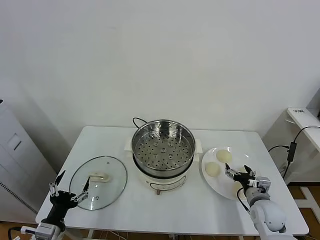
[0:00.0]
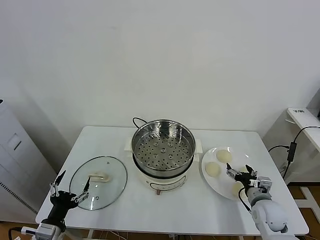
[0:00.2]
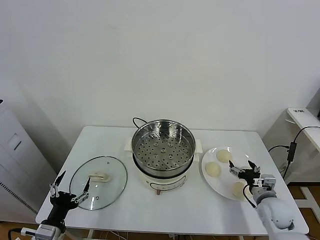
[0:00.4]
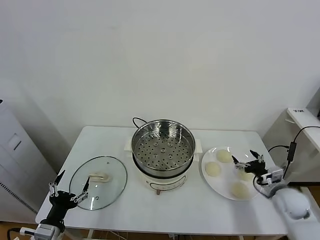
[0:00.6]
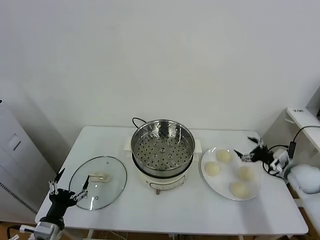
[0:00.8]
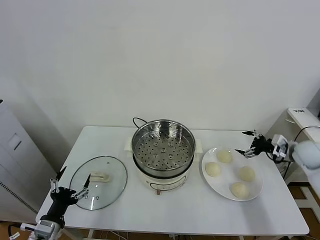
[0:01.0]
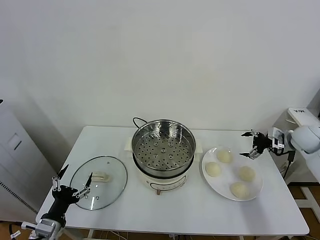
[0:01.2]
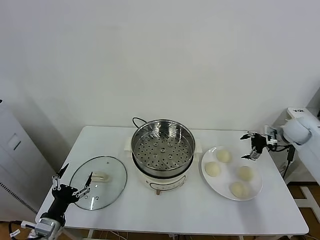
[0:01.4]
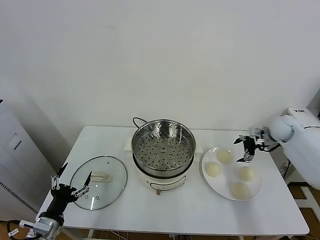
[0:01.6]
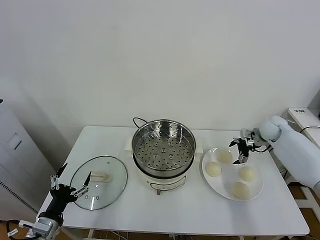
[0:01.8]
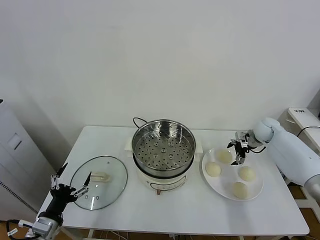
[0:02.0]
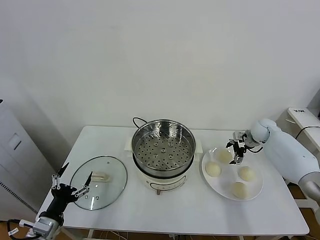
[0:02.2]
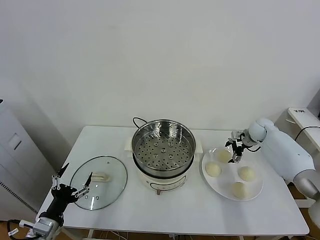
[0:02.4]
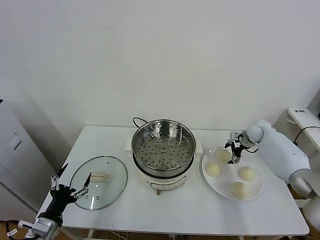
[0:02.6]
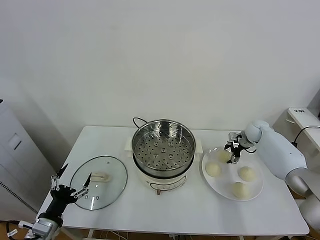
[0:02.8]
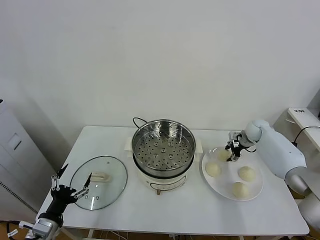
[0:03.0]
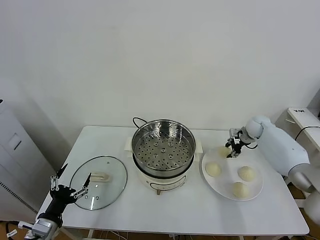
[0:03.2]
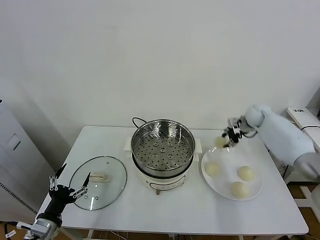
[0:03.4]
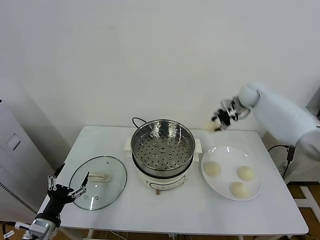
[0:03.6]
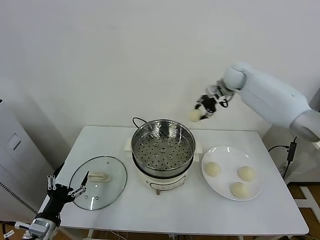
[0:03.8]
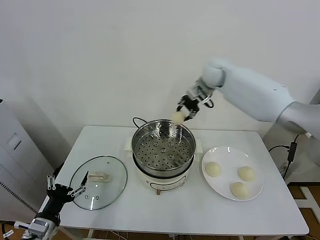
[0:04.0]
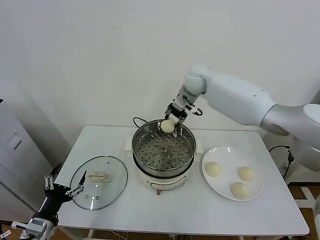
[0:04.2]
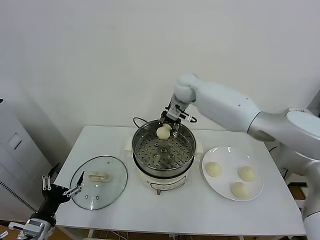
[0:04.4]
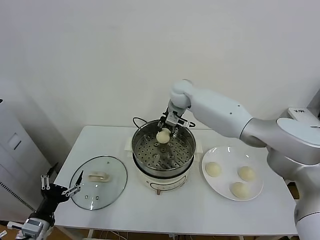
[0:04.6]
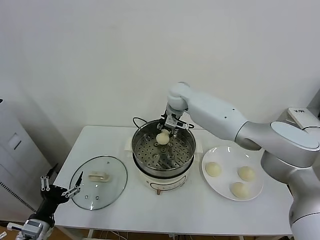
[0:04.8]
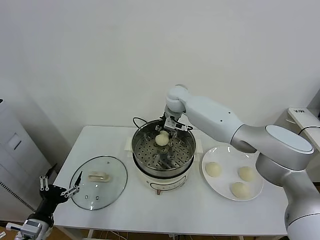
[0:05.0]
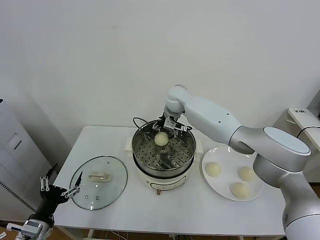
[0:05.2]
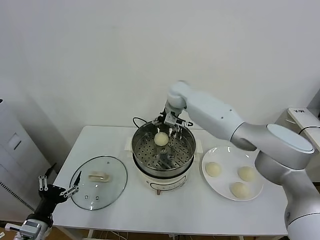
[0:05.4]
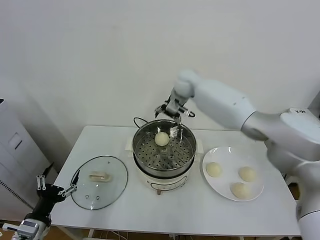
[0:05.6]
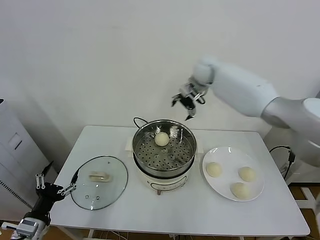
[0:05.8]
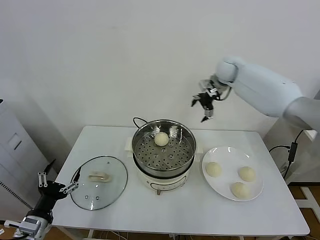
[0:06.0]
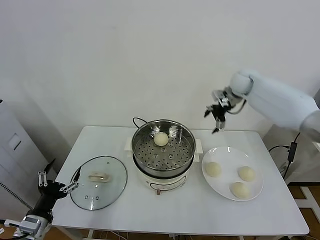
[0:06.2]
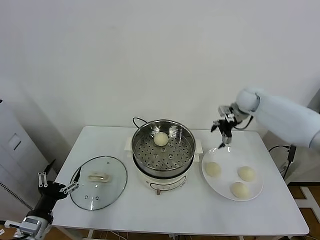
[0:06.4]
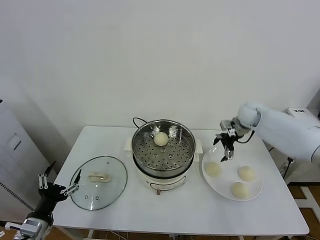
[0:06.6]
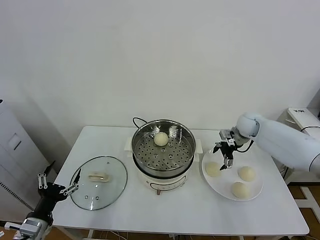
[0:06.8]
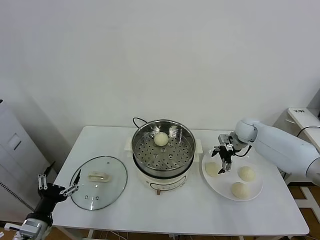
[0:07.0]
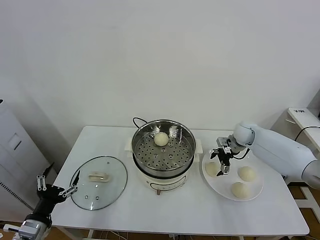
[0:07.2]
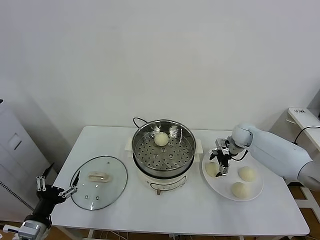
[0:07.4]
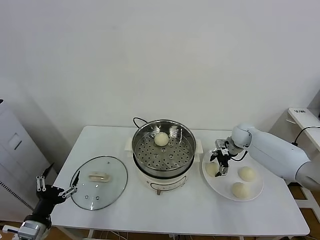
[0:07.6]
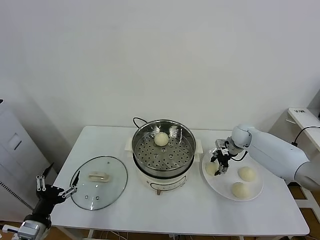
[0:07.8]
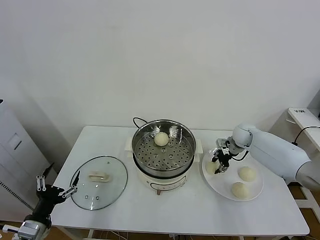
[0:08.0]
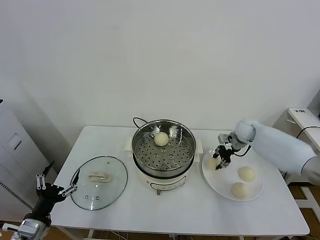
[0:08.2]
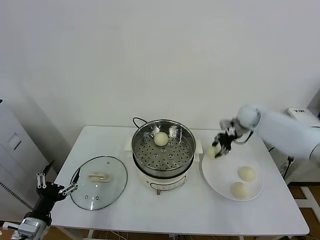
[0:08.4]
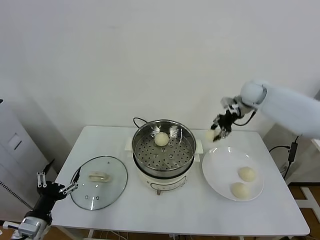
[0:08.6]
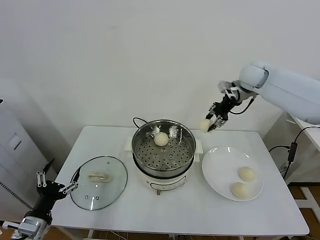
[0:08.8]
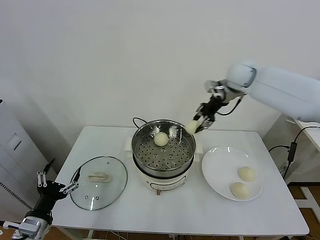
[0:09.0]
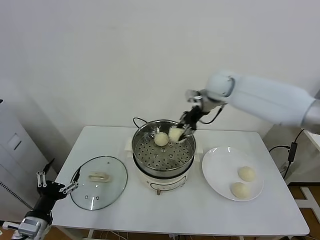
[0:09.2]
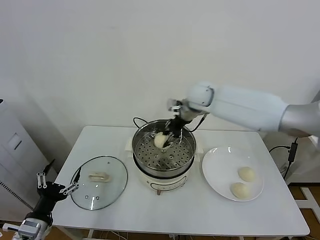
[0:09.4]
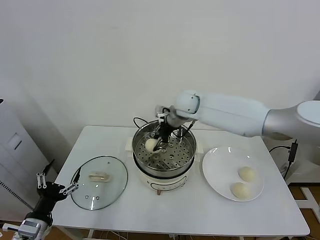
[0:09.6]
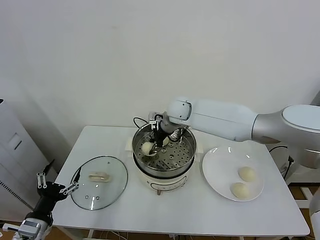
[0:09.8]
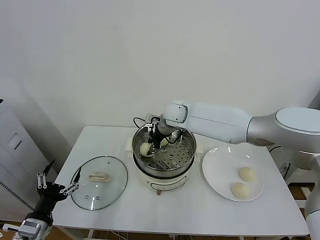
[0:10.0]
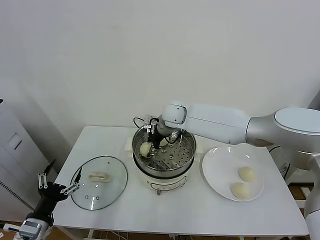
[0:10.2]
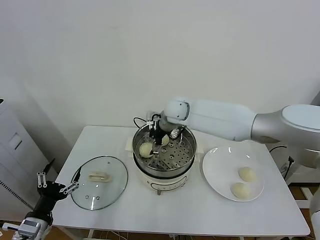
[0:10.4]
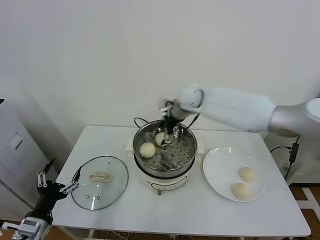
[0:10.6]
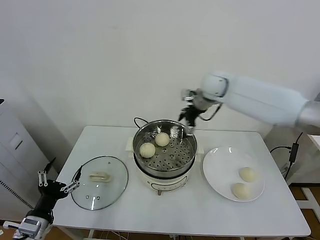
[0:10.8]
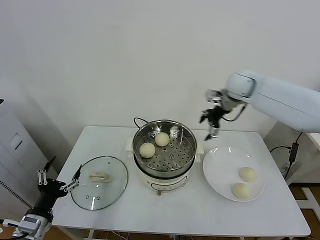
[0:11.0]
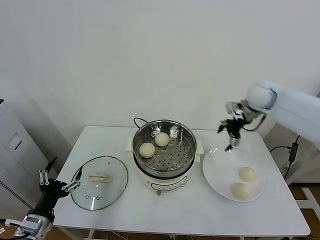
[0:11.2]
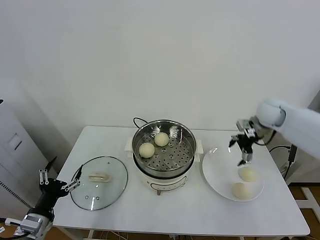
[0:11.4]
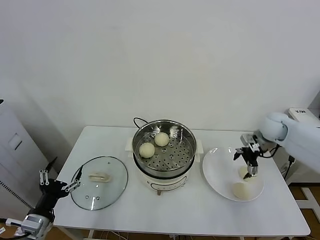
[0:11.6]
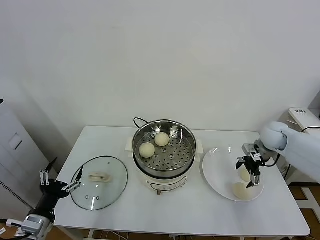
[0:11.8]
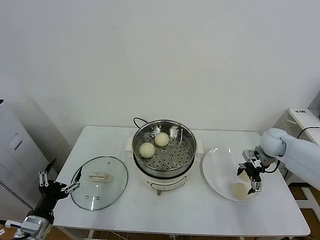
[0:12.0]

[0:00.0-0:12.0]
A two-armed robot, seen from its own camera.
Task of the whole recording: take steamed baozi put them in steamer.
Step, 0:00.0 to 0:02.8: Grasp the baozi in the plate with right gripper.
Step, 0:03.0 to 0:05.2: Place the baozi on the steamer with right gripper.
Step, 0:05.4 to 0:07.8: Grasp the baozi in the plate with right gripper.
Step, 0:08.0 to 0:10.4: Place the baozi on the steamer with right gripper.
0:01.6 to 0:03.0: The right gripper is displaced downward by roughly 5 cm, and closes its fingers.
0:03.0 to 0:04.4: The right gripper moves to the left and upward, roughly 35 cm.
0:04.4 to 0:06.0: The right gripper travels to the right by approximately 20 cm, and opens its fingers.
0:06.0 to 0:07.6: The right gripper is displaced downward by some 25 cm.
0:07.6 to 0:09.0: The right gripper moves upward and to the left, roughly 25 cm, and closes up.
0:09.0 to 0:10.4: The right gripper moves to the left and downward, roughly 20 cm, and opens.
0:10.4 to 0:12.0: The right gripper is displaced to the right by approximately 35 cm.

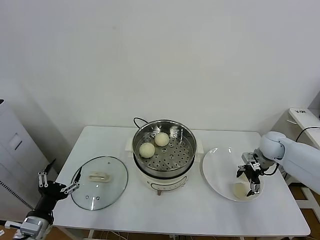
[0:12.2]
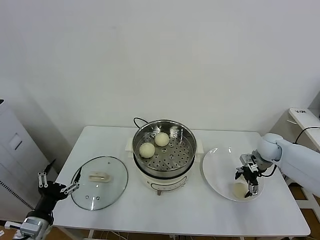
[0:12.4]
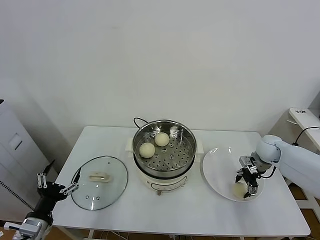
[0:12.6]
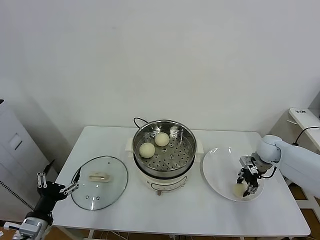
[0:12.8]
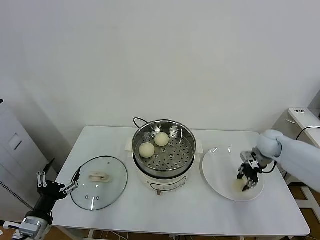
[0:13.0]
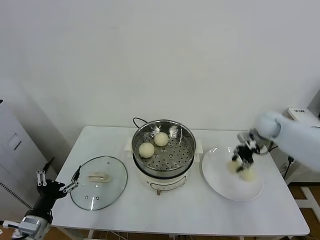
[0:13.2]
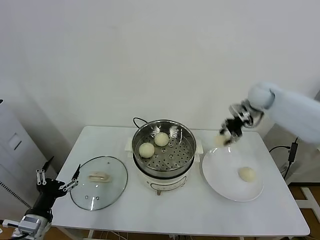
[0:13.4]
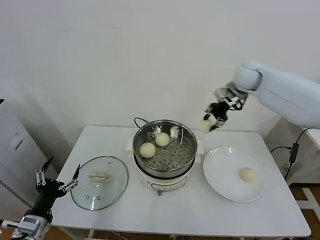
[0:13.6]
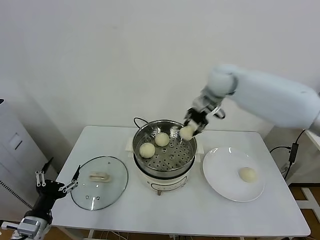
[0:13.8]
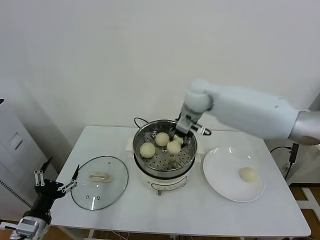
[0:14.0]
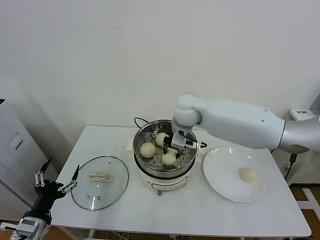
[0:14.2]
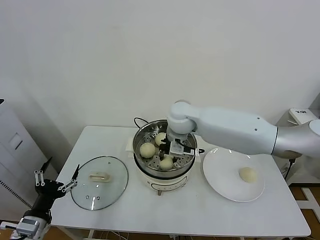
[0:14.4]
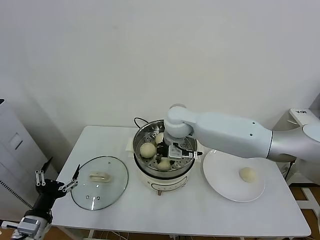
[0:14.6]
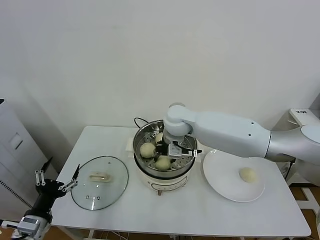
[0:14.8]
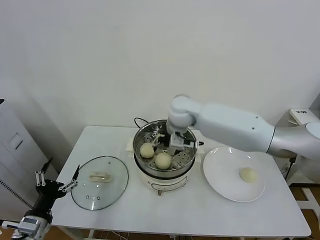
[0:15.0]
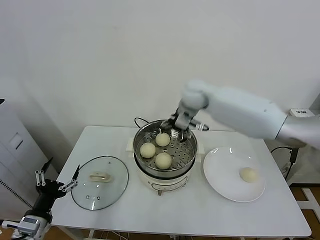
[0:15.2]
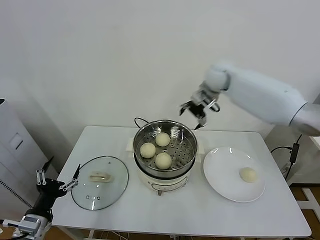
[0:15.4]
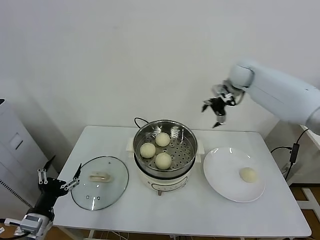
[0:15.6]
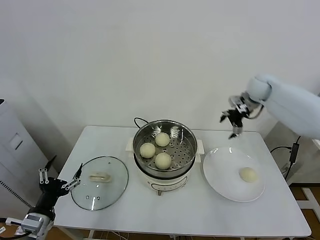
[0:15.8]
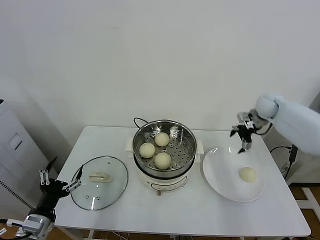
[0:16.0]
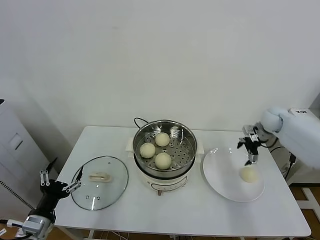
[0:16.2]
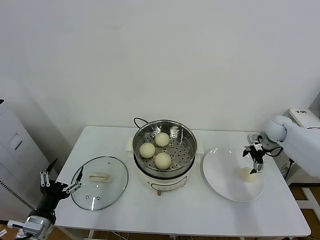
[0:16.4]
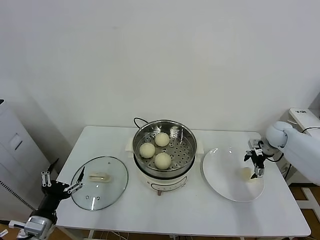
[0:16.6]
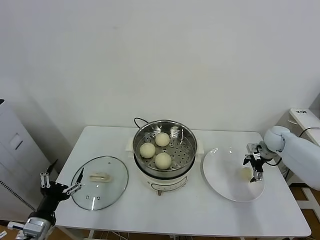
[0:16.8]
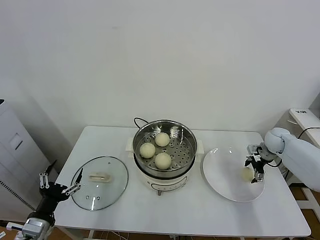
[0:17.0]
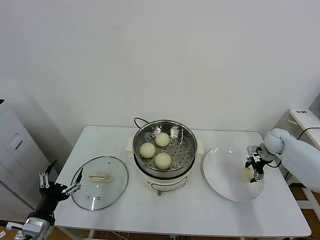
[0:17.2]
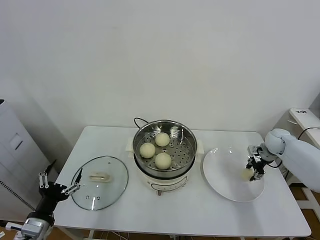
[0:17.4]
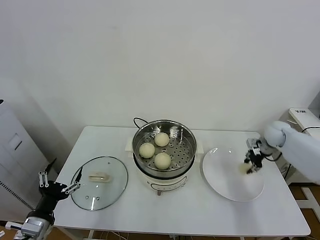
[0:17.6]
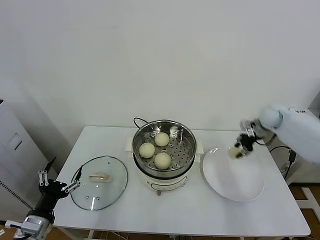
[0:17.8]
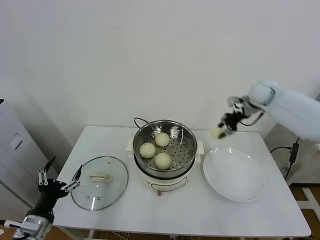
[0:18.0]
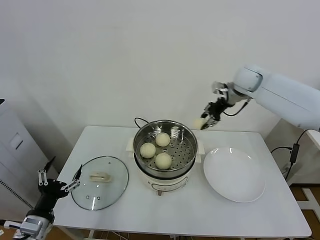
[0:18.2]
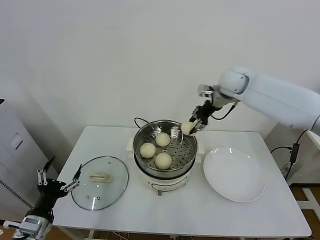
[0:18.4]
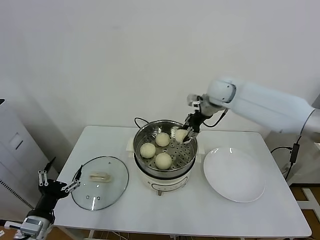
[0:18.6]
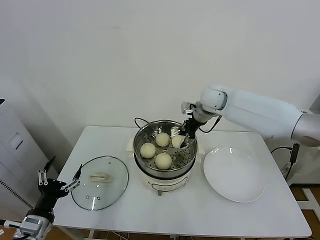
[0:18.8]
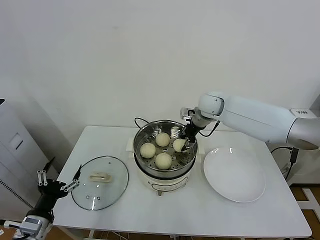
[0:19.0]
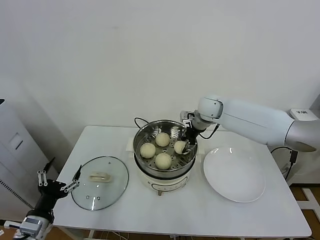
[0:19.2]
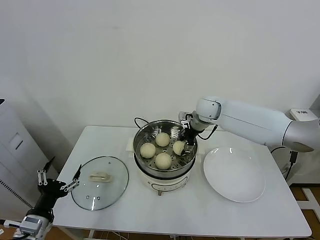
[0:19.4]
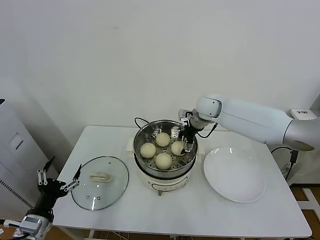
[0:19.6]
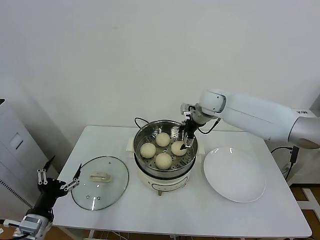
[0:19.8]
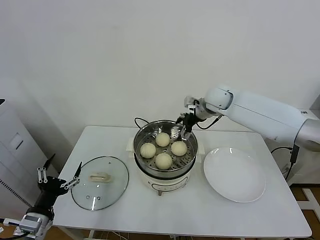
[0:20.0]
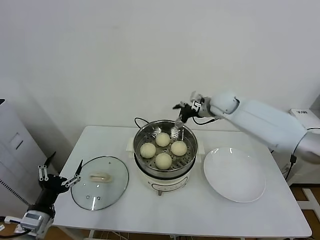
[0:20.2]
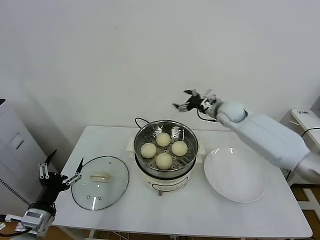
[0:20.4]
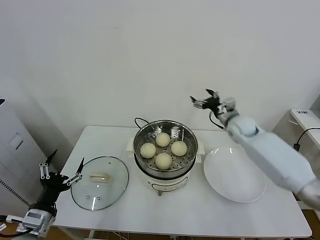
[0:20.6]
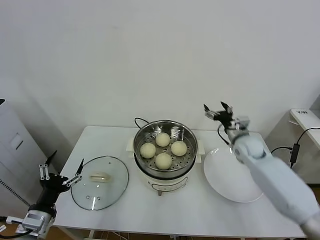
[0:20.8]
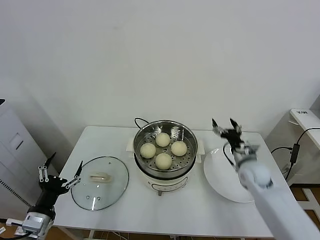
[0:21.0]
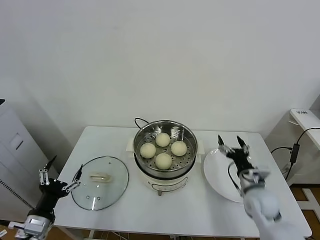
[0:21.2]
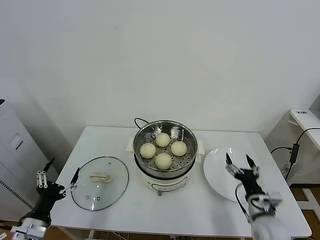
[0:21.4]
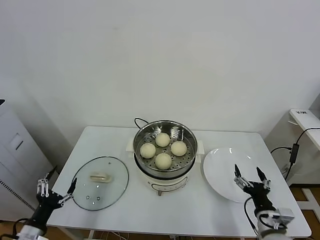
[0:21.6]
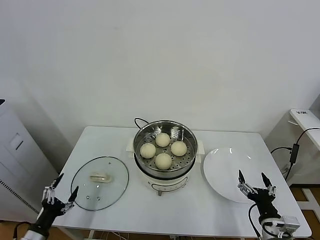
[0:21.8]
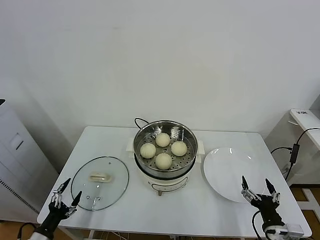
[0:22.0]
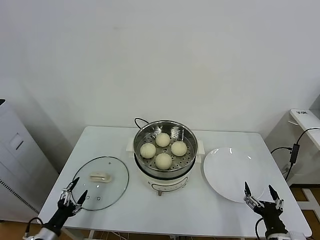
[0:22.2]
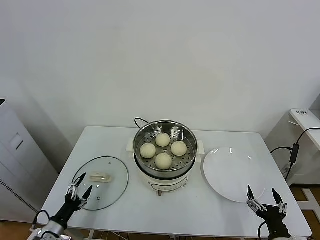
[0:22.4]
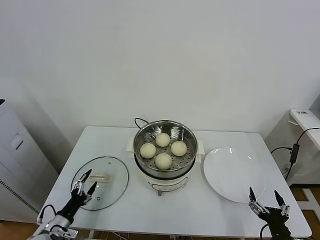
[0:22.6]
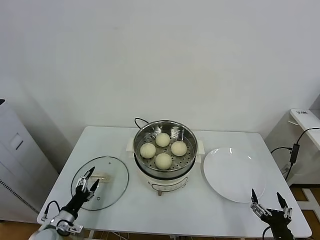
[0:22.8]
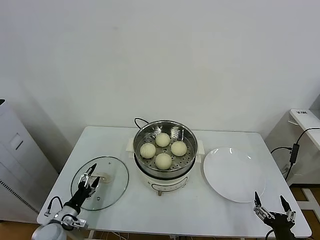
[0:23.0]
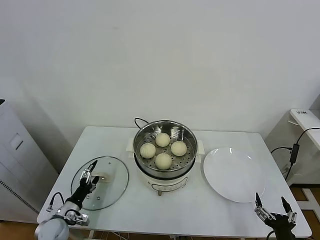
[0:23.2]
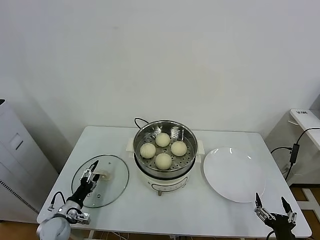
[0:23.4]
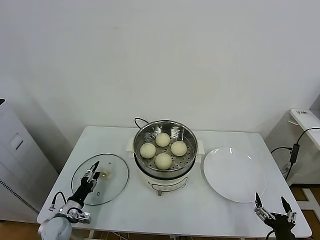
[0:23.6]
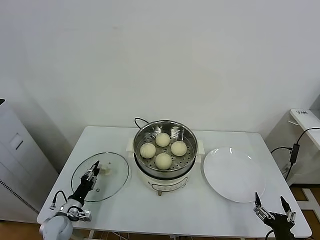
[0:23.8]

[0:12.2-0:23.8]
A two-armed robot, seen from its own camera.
Task of the whole recording: take steamed baozi put them in steamer.
Step, 0:13.0 to 0:15.0: Place the baozi on the steamer with right gripper.
Step, 0:15.2 to 0:17.4: Grasp the baozi in the plate with right gripper.
Step, 0:17.6 to 0:19.6: Place the baozi on the steamer with right gripper.
0:12.2 to 0:13.6: The right gripper is displaced upward and to the left by approximately 30 cm, and closes up.
0:13.6 to 0:15.0: The right gripper goes approximately 20 cm to the left and downward, and opens.
0:15.0 to 0:16.6: The right gripper travels to the right by approximately 40 cm.
0:16.6 to 0:18.0: The right gripper is displaced upward and to the left by about 20 cm, and closes up.
0:18.0 to 0:19.4: The right gripper is displaced to the left by approximately 20 cm, and opens up.
0:19.4 to 0:21.0: The right gripper shifts some 30 cm downward, backward and to the right, and opens up.
0:21.0 to 0:22.4: The left gripper shifts approximately 15 cm downward; the right gripper is displaced backward by approximately 30 cm.
0:22.4 to 0:23.8: The left gripper shifts approximately 10 cm forward, and closes its fingers.
